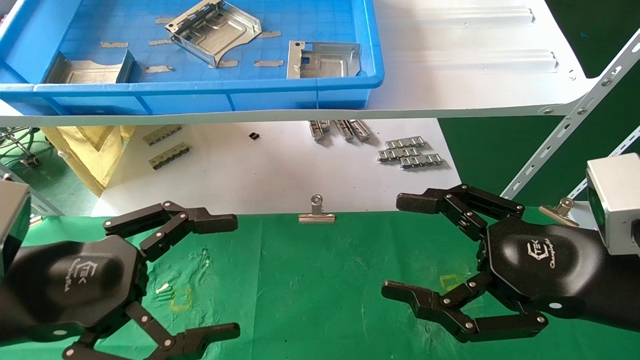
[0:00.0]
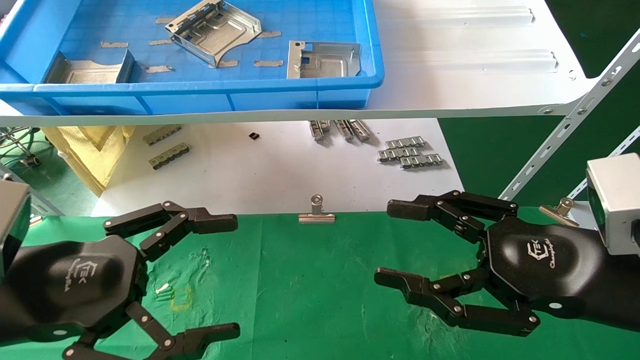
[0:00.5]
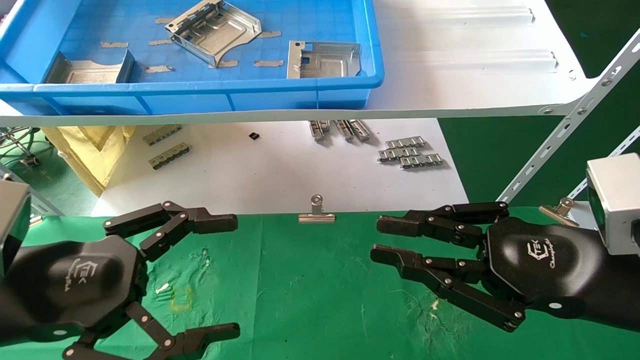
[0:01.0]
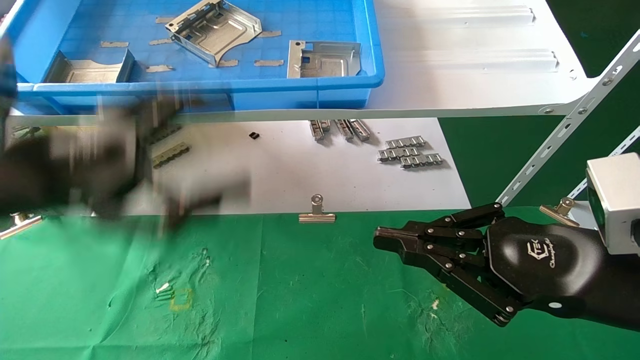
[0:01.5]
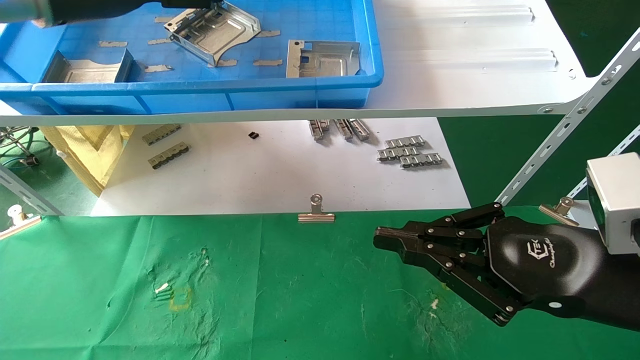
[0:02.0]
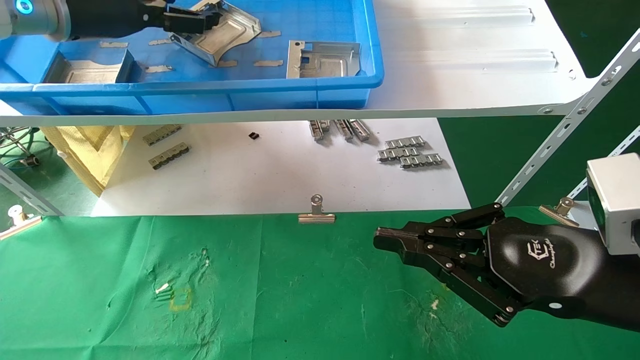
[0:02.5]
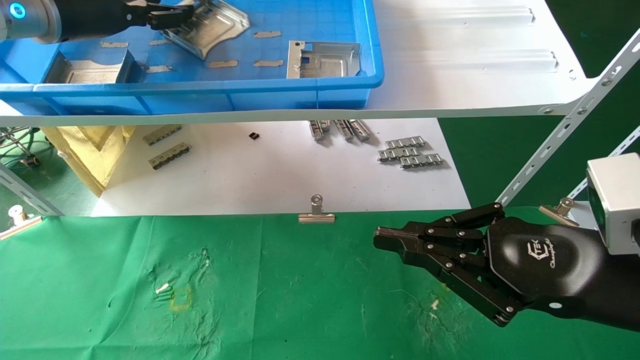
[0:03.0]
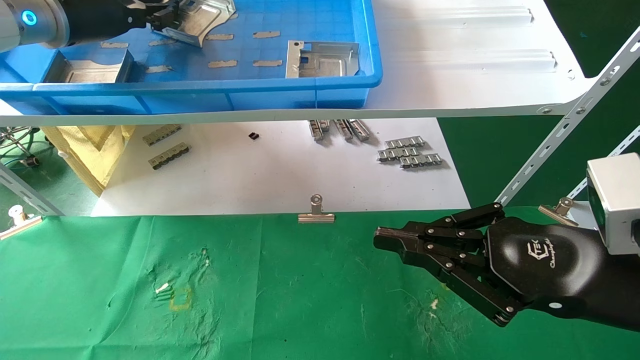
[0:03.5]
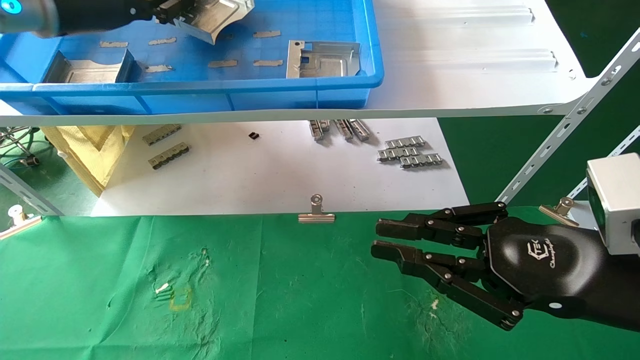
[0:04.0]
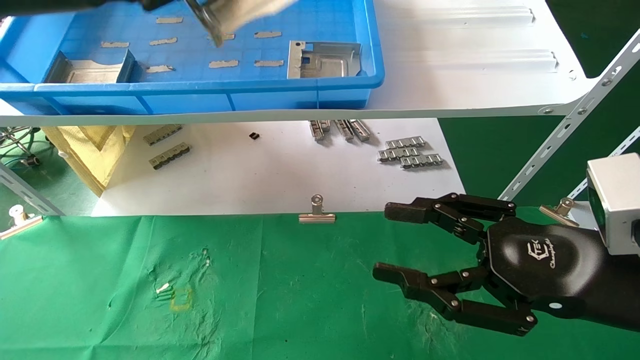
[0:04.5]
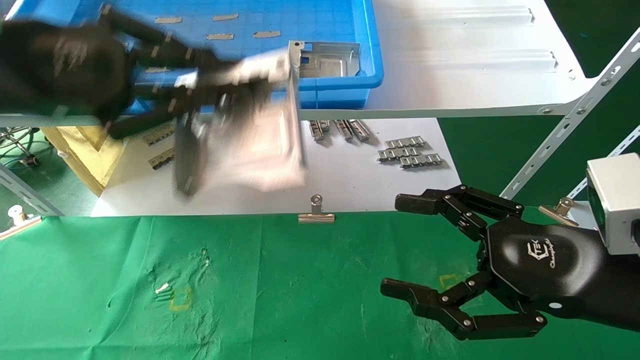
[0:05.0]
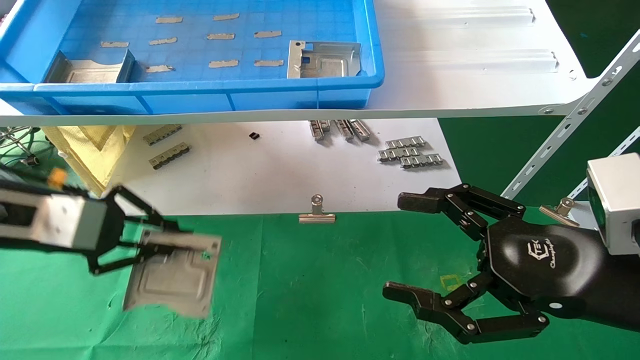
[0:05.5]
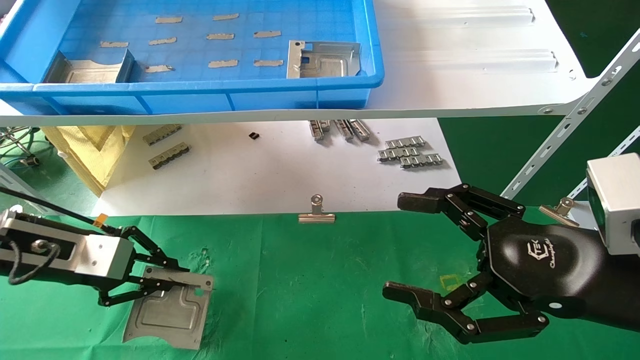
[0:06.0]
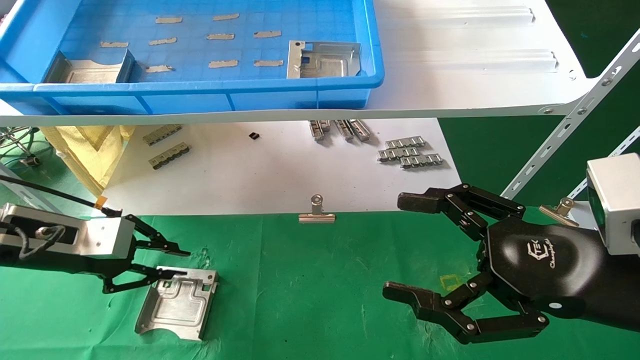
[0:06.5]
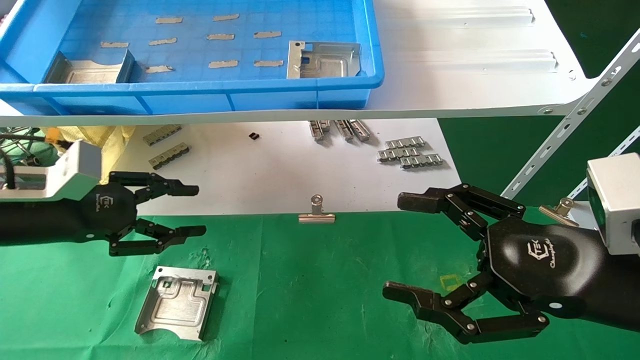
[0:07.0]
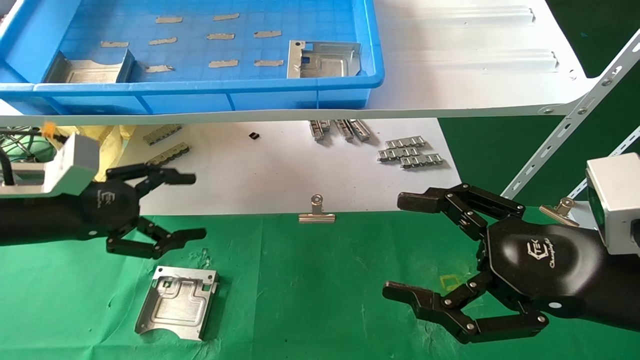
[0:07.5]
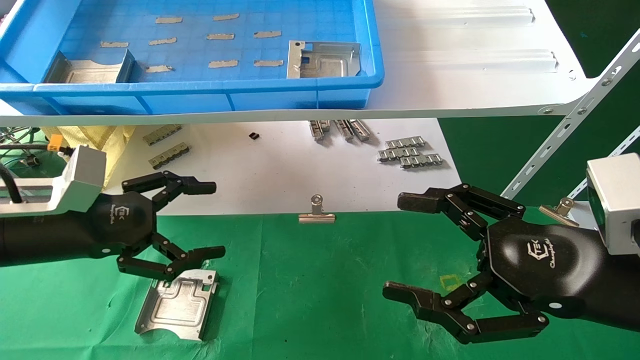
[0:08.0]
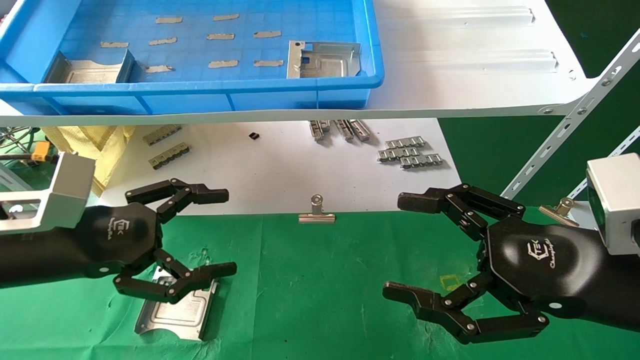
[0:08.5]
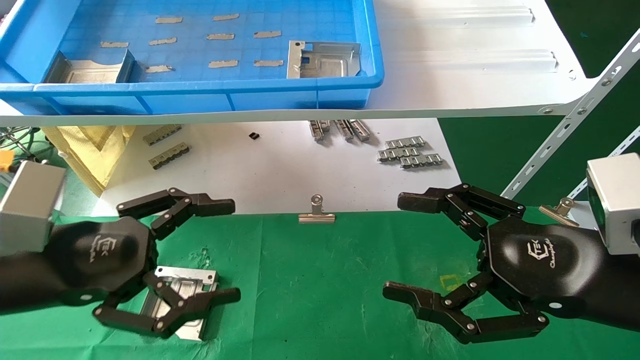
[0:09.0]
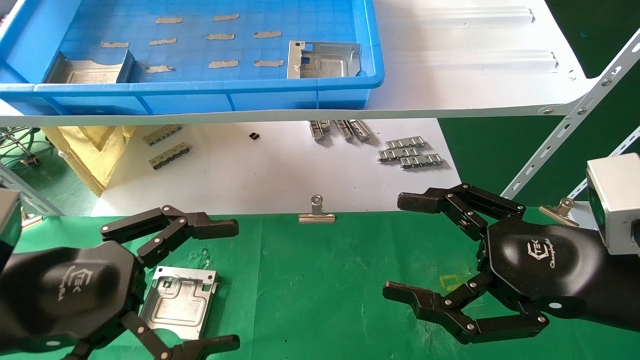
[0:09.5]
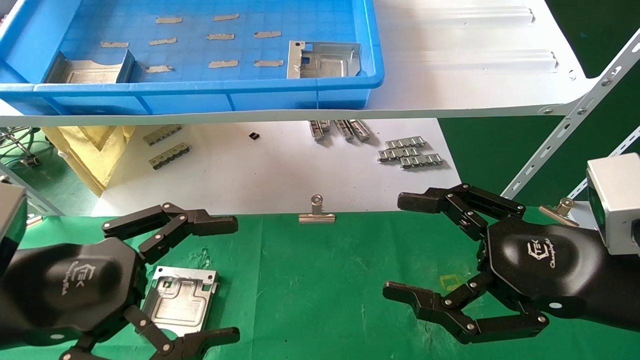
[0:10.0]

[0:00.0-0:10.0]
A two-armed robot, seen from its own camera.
Task of the whole recording: use the mechanical arm to pick up the parts and place them on the table.
Step, 0:01.5 to 0:03.5: Pick up the hard drive bracket from the feeding area.
Step, 0:04.0 to 0:06.0: Place the hard drive bracket into the box.
0:00.0 to 0:02.0: The left gripper is displaced upward and forward by some 30 cm. Meanwhile the right gripper closes.
0:02.0 to 0:04.0: The left gripper closes its fingers.
0:04.0 to 0:06.0: The right gripper opens up. The left gripper moves downward, about 25 cm.
0:06.0 to 0:08.0: The left gripper opens its fingers.
0:08.0 to 0:10.0: The left gripper shifts some 10 cm backward.

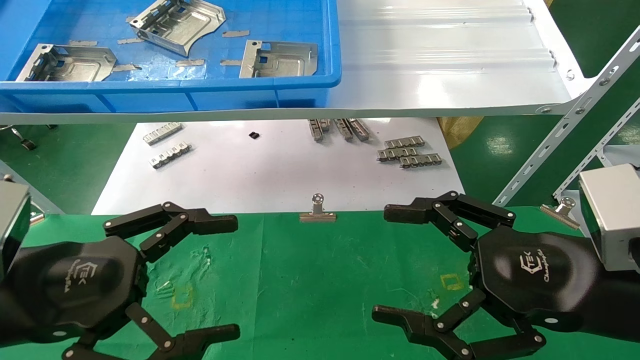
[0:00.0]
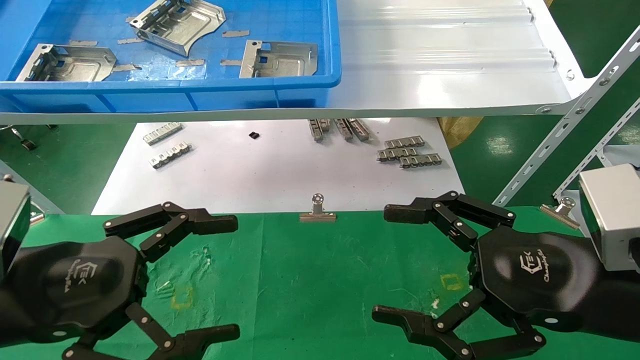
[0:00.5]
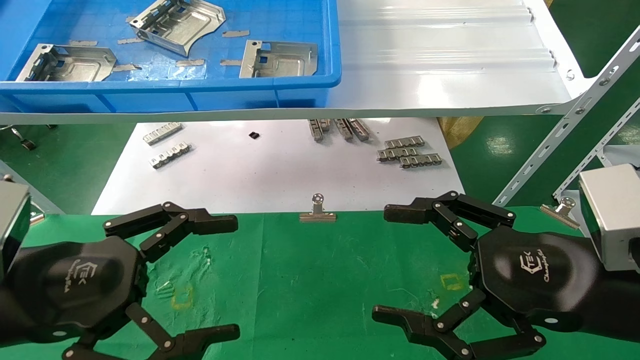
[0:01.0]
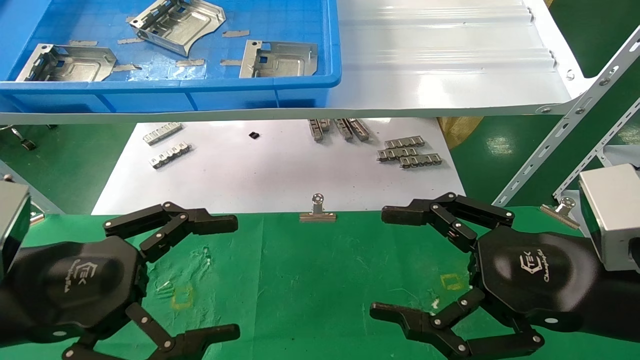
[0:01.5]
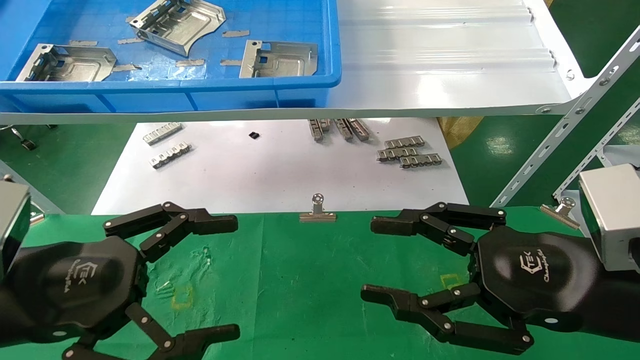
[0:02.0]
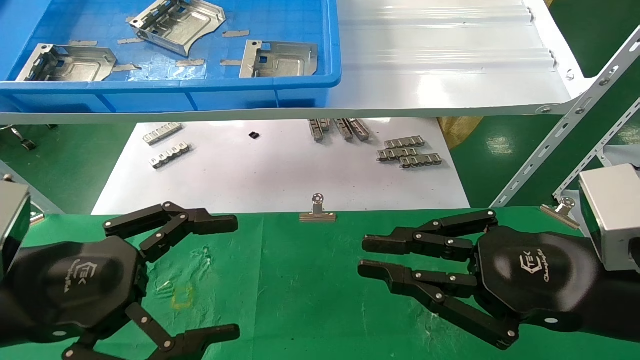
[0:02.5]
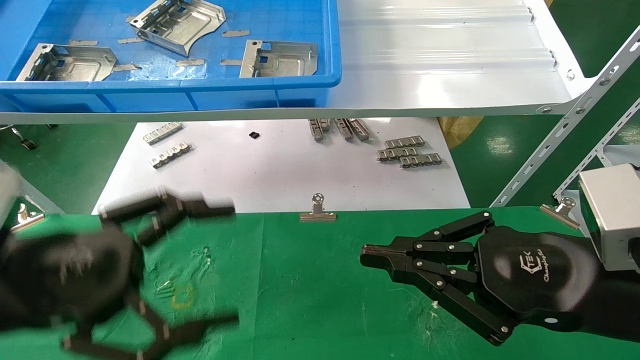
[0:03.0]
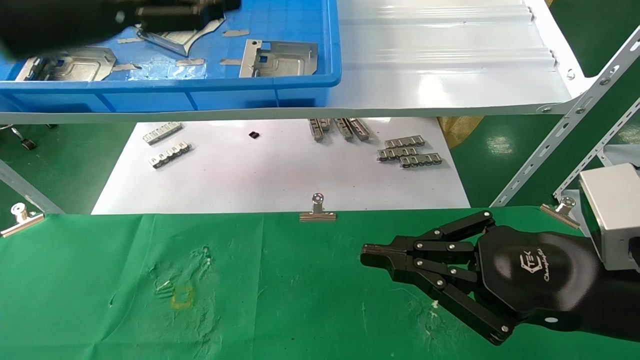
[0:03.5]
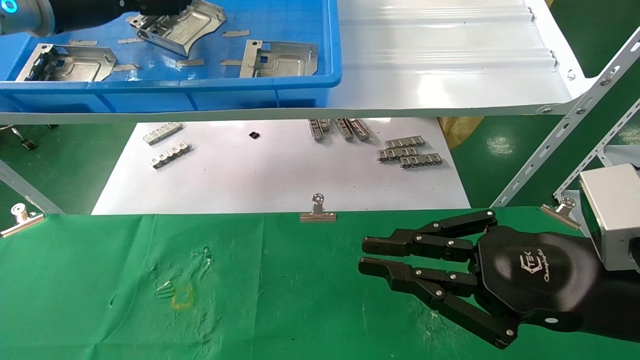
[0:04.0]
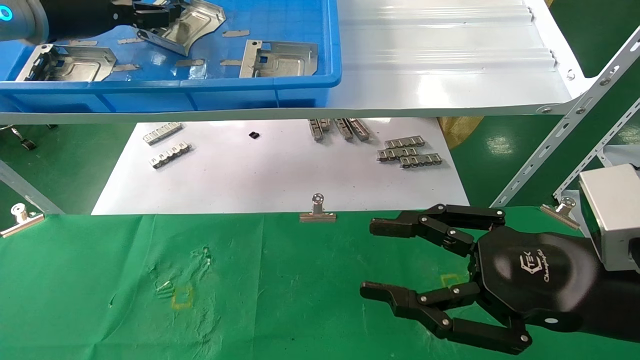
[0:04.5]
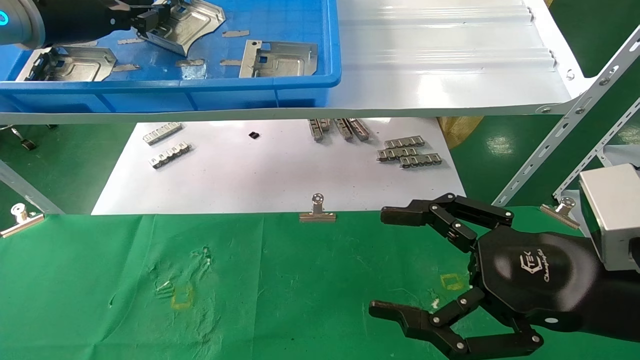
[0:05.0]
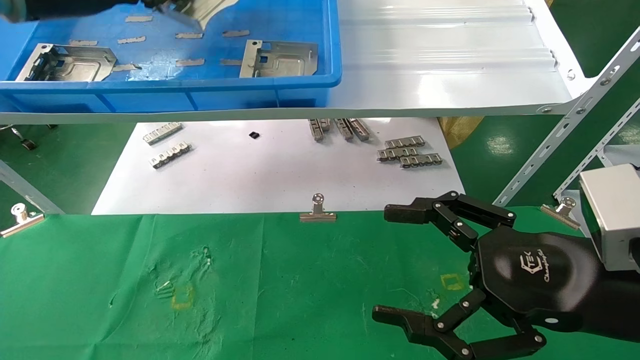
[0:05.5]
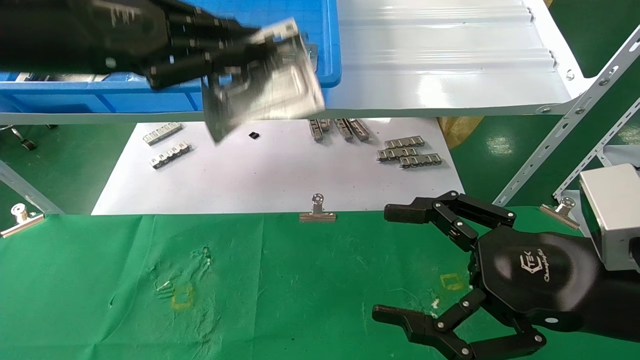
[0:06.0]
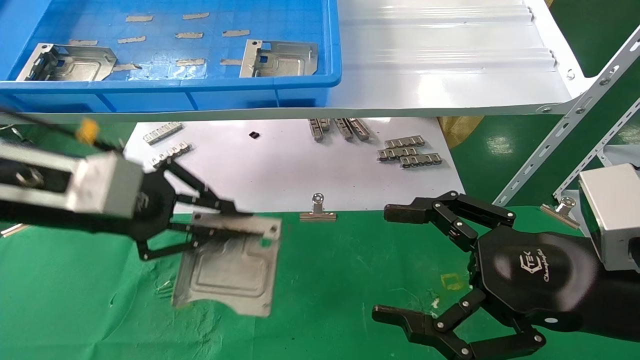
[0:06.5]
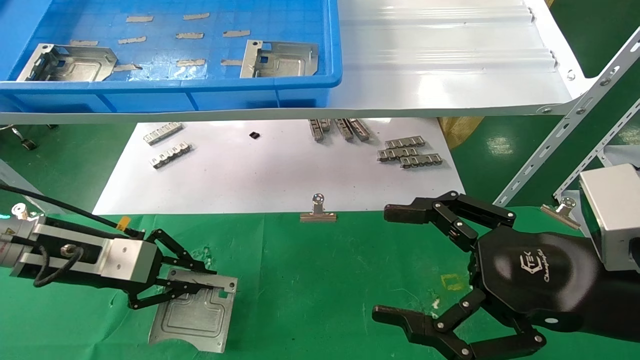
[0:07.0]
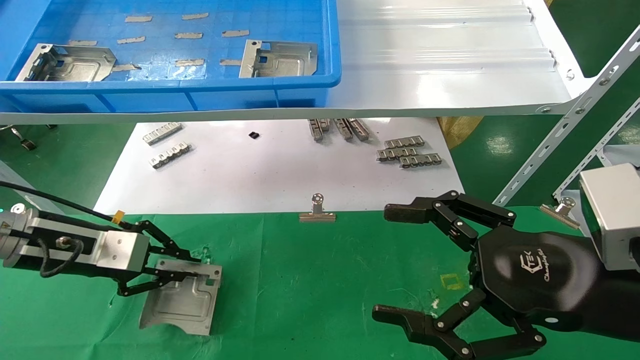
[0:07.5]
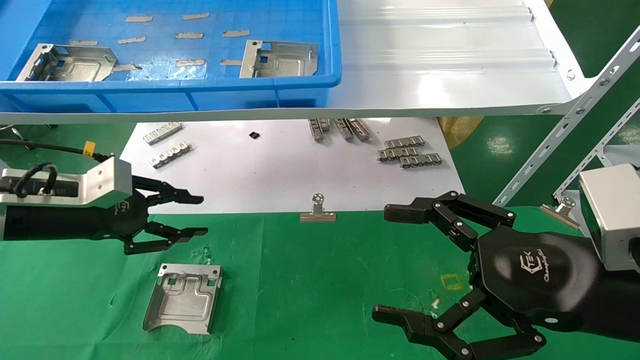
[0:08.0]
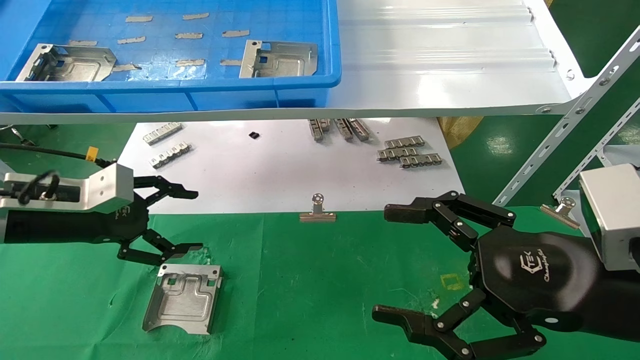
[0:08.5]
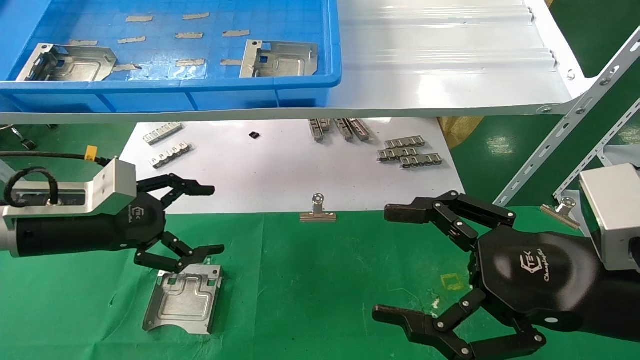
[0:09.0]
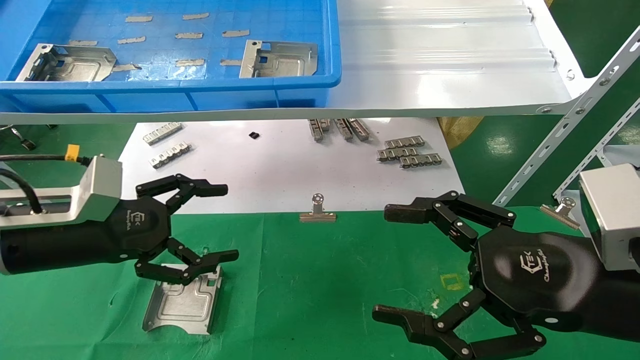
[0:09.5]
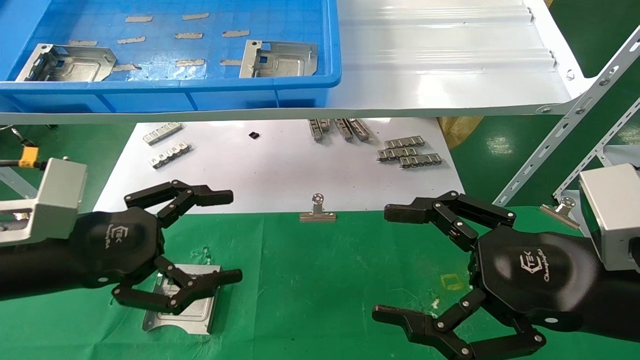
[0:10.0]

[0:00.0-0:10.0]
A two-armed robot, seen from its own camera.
Task of the whole recording: use the mechanical arm to pick up the parts and place them on the table.
Step, 0:03.5 to 0:05.0: Pick up the hard drive bracket from the feeding area.
Step, 0:05.5 to 0:07.5: Place the hard drive bracket into the box.
0:00.0 to 0:02.0: Both grippers stay put.
0:02.0 to 0:04.0: The left gripper moves upward and forward, roughly 30 cm; the right gripper closes its fingers.
0:04.0 to 0:06.0: The right gripper opens up. Meanwhile the left gripper travels backward by about 10 cm, and closes up.
0:06.0 to 0:08.0: The left gripper moves downward and to the left, about 20 cm.
0:08.0 to 0:10.0: The left gripper is displaced backward and to the right by some 10 cm, and opens up.
